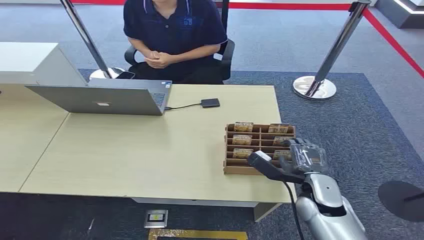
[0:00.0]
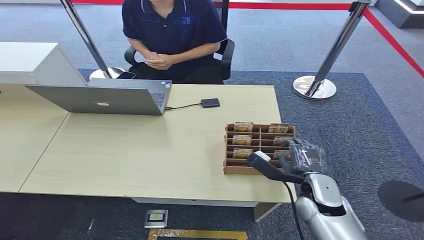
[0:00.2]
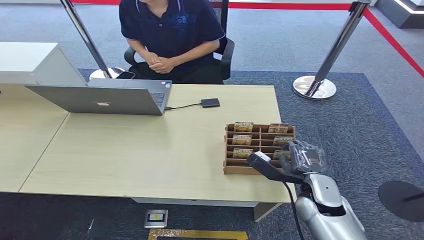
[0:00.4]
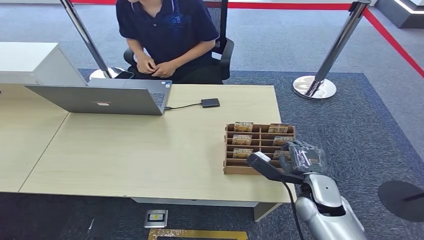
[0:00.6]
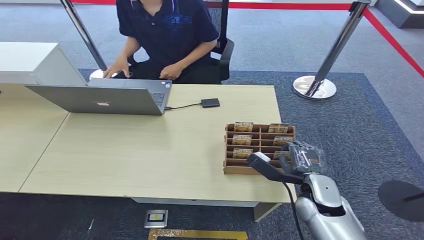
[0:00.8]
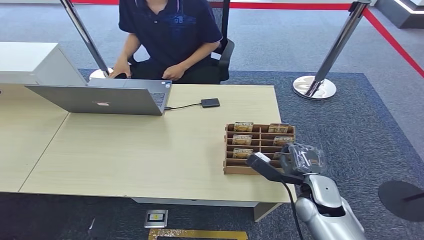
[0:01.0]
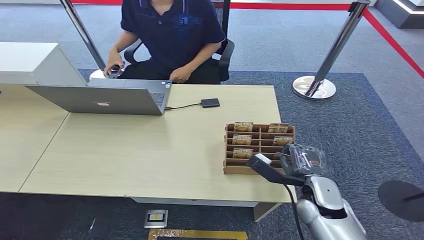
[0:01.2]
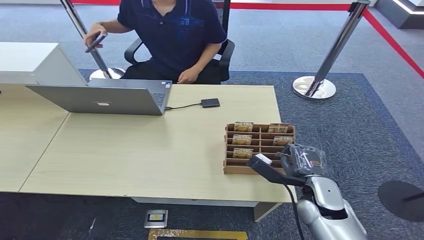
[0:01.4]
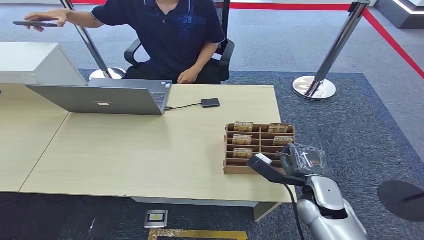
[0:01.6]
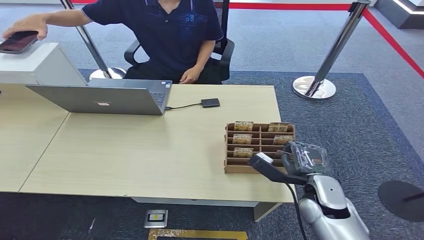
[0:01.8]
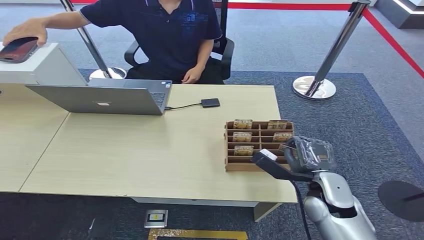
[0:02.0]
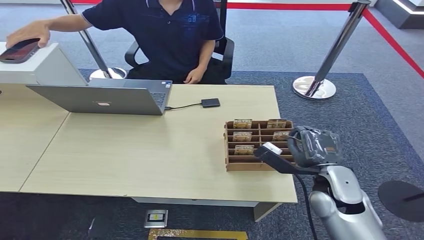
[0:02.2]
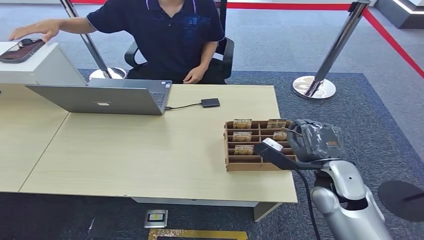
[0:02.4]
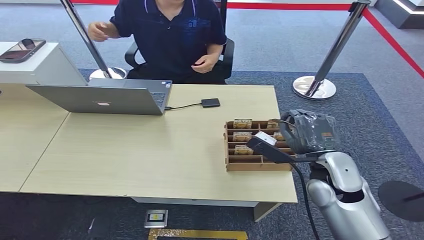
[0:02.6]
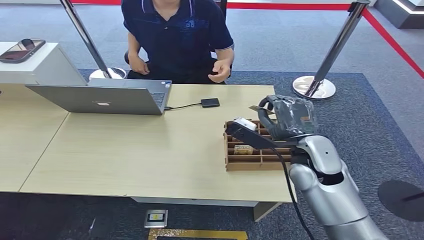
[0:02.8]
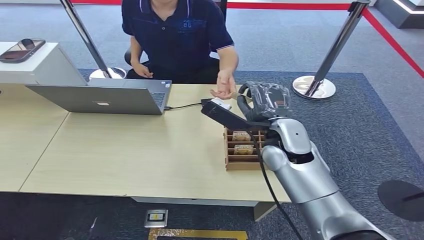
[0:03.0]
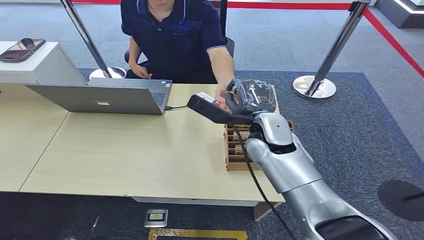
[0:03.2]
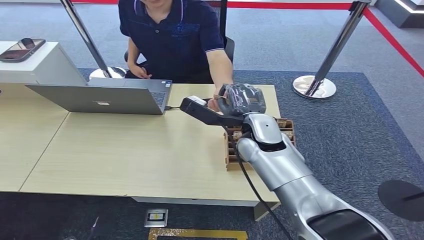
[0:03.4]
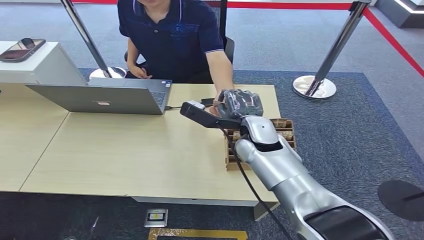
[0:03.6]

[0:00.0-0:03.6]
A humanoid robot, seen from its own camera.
Step, 0:00.0 to 0:02.8: Pick up the room card from the card holder.
Step, 0:03.0 to 0:03.6: Hand the room card to the target.
0:01.8 to 0:03.6: The right hand shifts roughly 20 cm to the left, forward and upward.

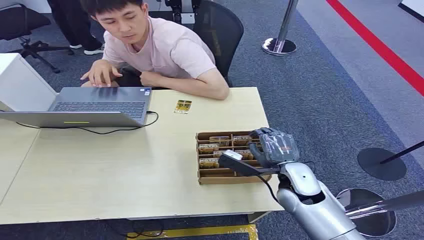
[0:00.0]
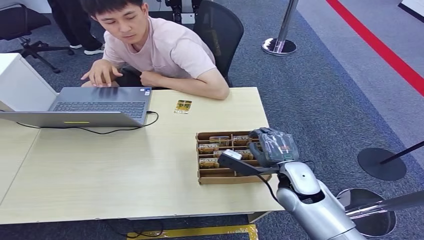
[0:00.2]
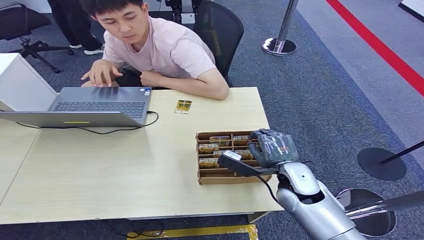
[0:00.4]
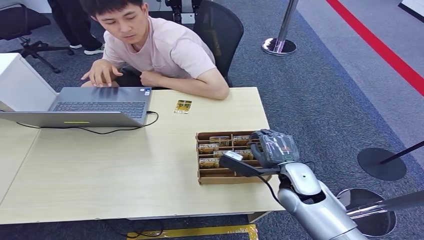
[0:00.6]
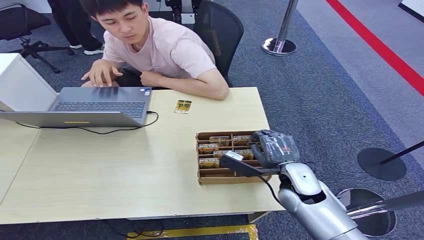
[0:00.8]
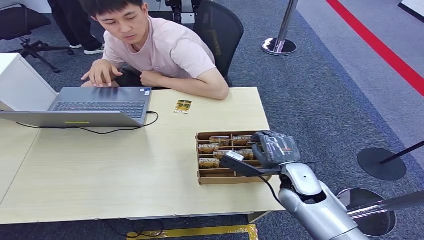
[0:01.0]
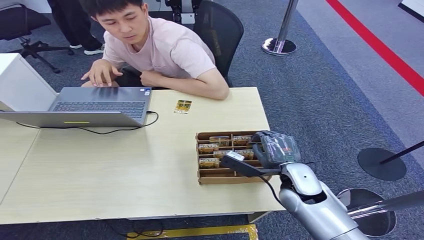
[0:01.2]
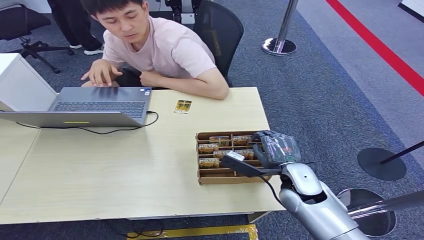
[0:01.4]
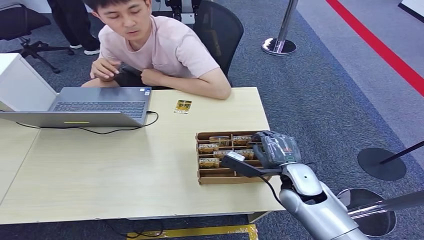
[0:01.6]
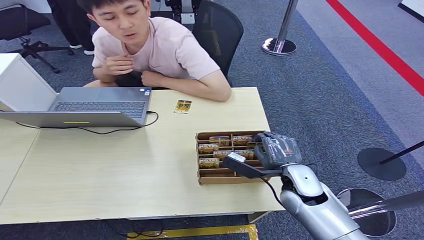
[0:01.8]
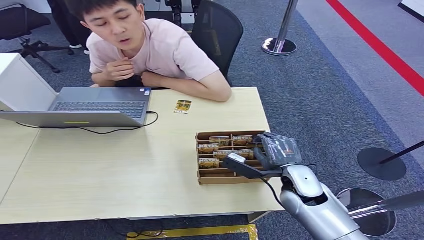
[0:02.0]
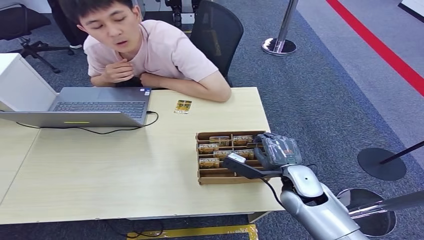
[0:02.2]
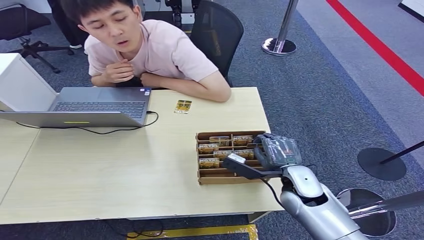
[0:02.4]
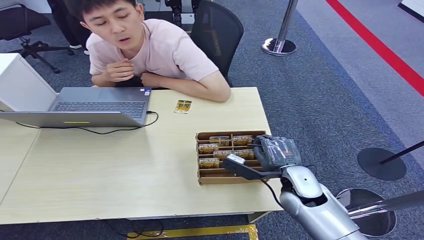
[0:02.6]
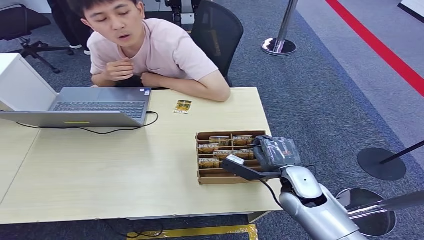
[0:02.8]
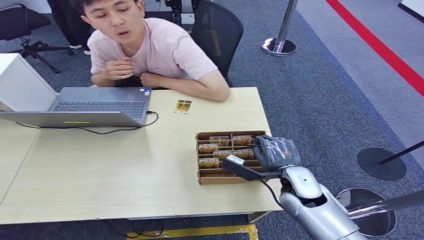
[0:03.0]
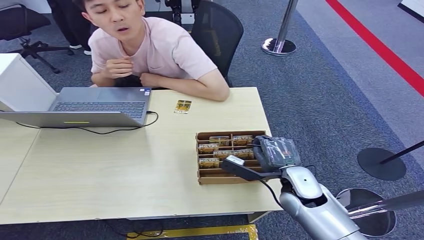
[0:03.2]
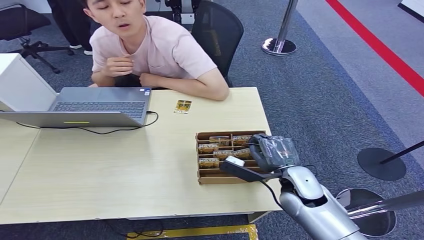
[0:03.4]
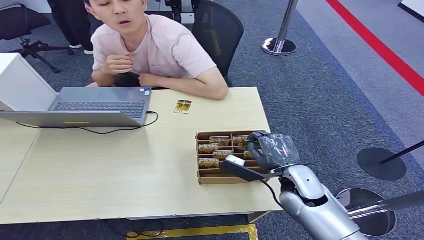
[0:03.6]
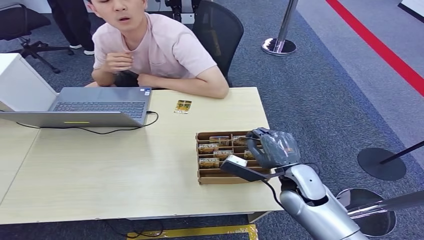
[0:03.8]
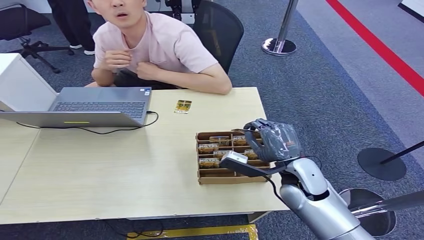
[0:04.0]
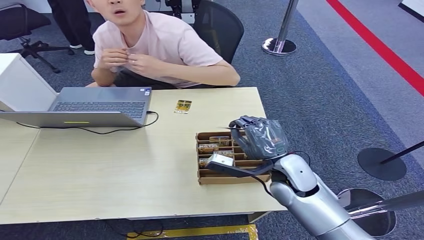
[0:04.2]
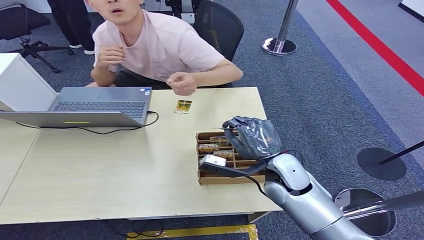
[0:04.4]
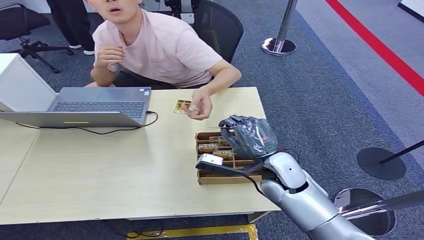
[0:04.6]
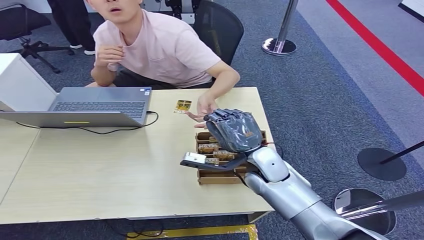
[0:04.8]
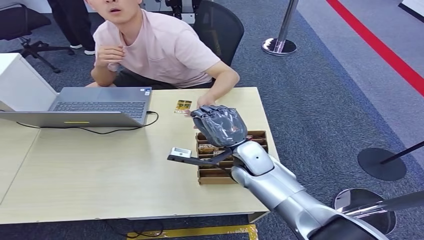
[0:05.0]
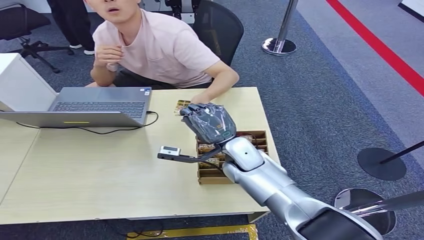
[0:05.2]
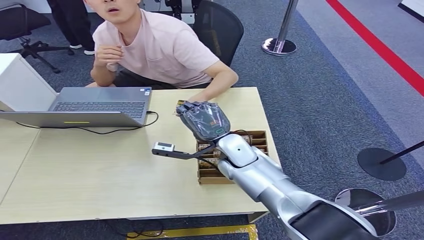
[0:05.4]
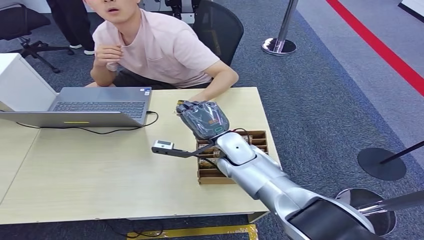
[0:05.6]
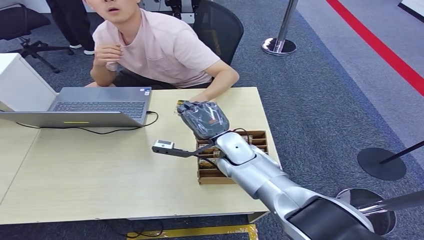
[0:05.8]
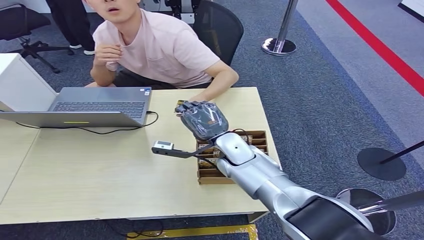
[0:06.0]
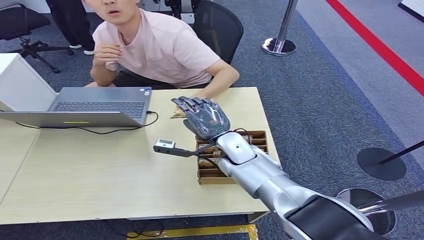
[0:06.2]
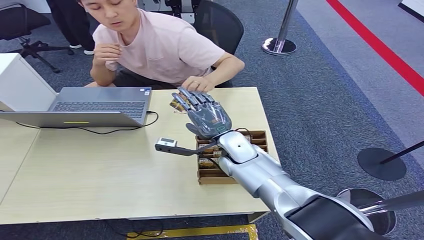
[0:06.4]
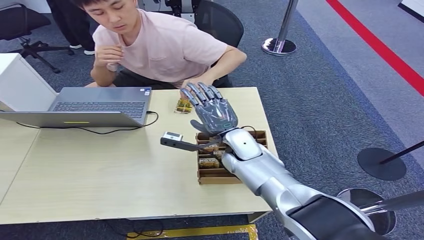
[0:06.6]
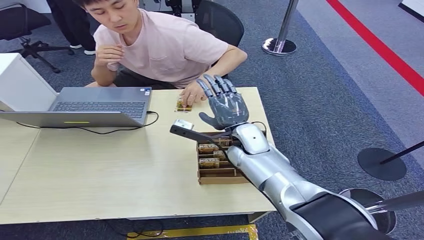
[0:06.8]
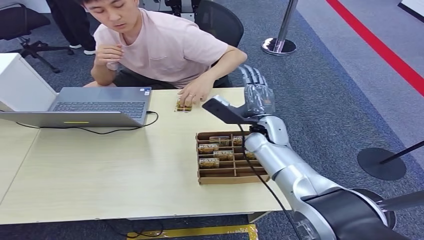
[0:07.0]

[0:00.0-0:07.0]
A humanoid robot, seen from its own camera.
Step, 0:00.0 to 0:04.0: Pick up the room card from the card holder.
Step, 0:04.2 to 0:07.0: Hand the room card to the target.
0:01.4 to 0:02.8: Both hands stay put.
0:02.8 to 0:04.2: The right hand heads to the left, covering about 5 cm.
0:04.2 to 0:05.6: The right hand shifts roughly 10 cm forward and to the left.
0:05.6 to 0:07.0: The right hand shifts roughly 15 cm to the right.
